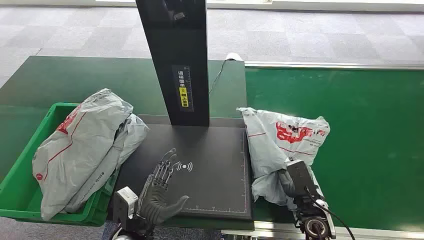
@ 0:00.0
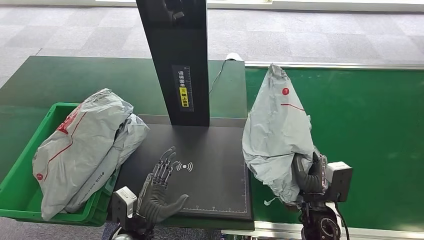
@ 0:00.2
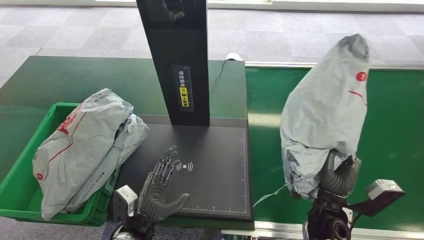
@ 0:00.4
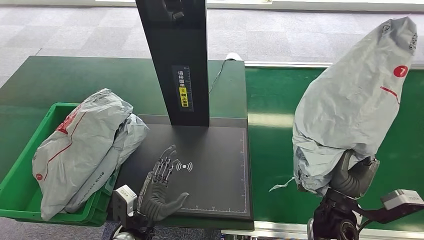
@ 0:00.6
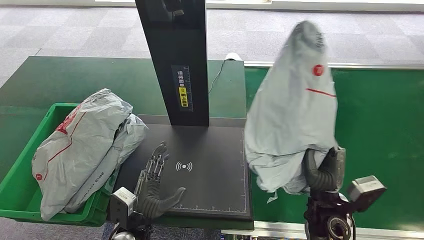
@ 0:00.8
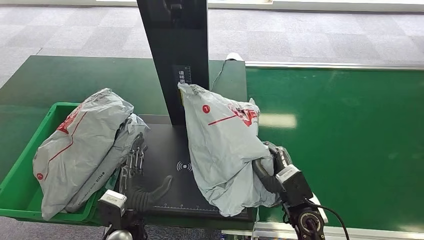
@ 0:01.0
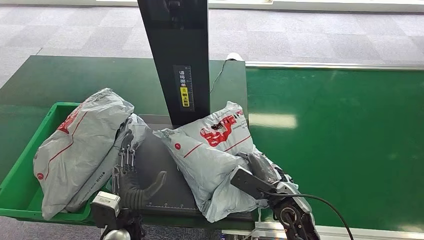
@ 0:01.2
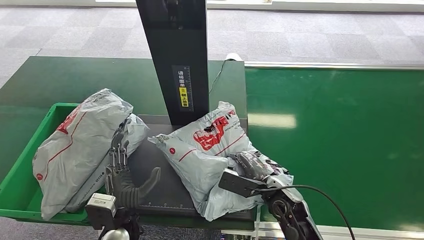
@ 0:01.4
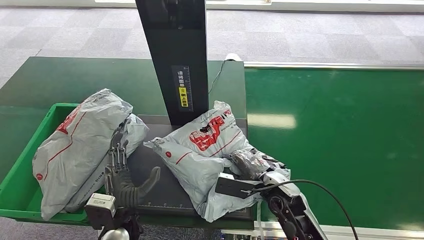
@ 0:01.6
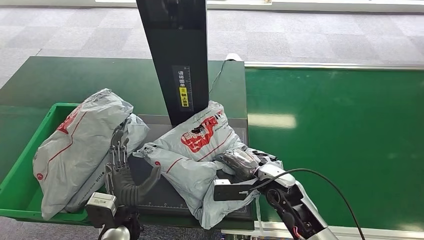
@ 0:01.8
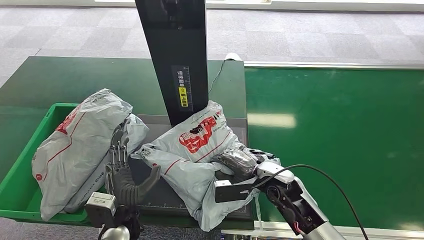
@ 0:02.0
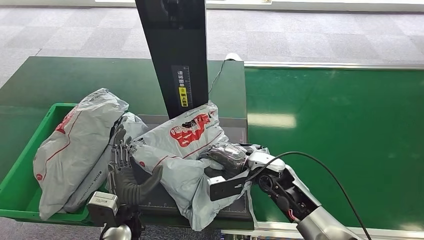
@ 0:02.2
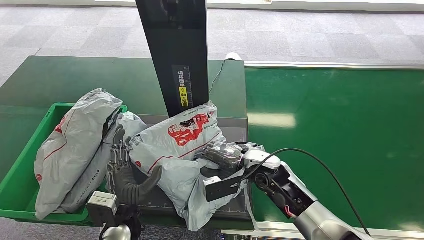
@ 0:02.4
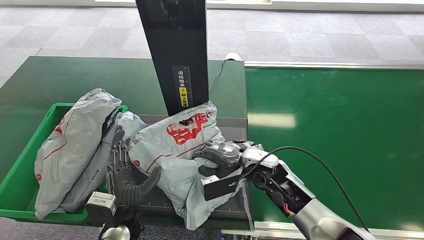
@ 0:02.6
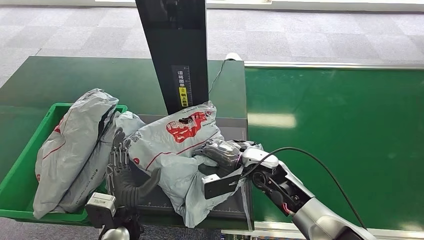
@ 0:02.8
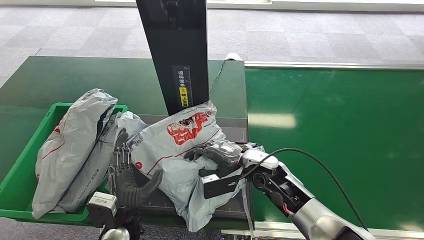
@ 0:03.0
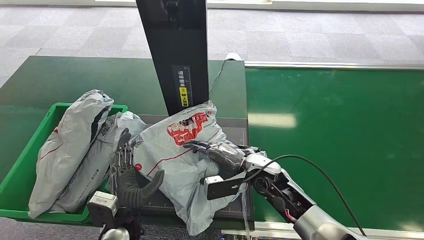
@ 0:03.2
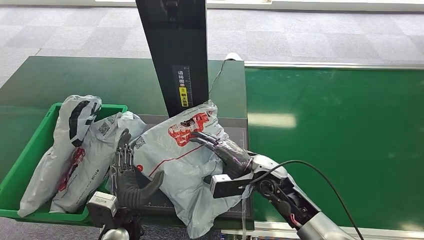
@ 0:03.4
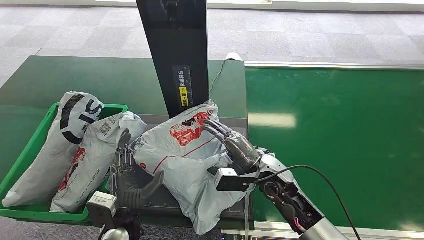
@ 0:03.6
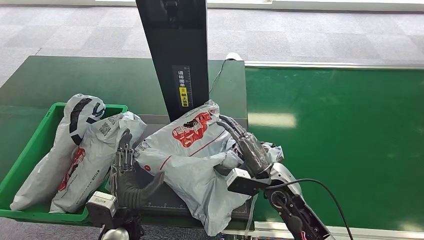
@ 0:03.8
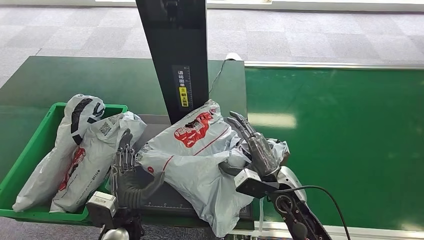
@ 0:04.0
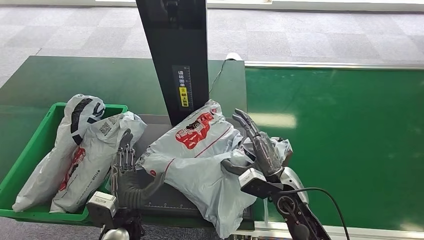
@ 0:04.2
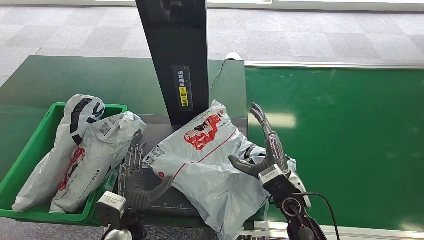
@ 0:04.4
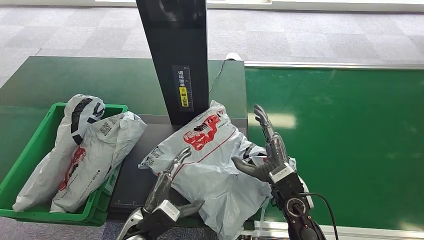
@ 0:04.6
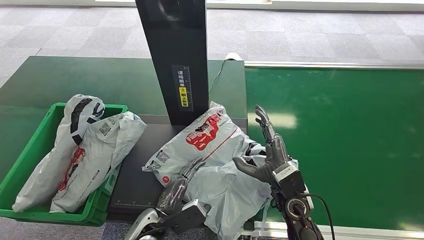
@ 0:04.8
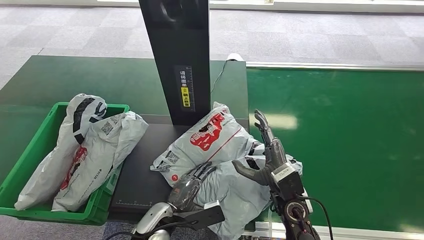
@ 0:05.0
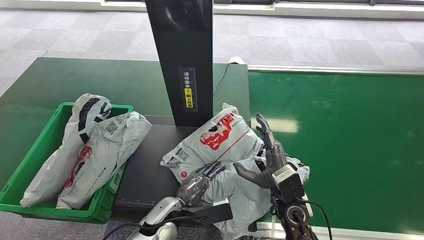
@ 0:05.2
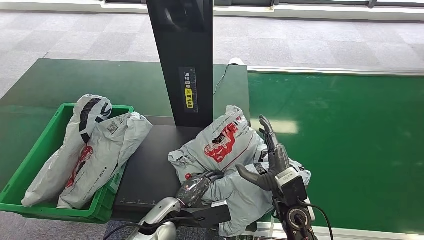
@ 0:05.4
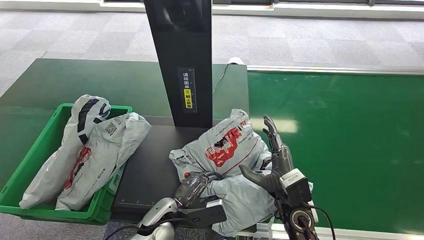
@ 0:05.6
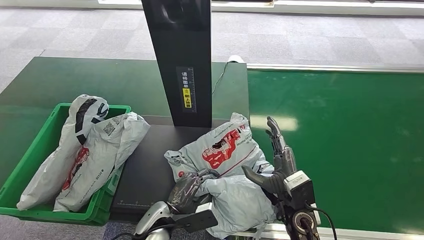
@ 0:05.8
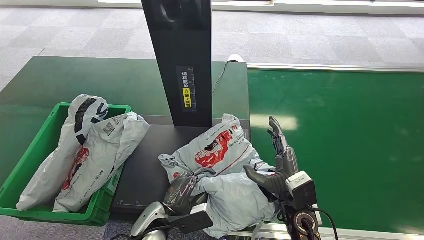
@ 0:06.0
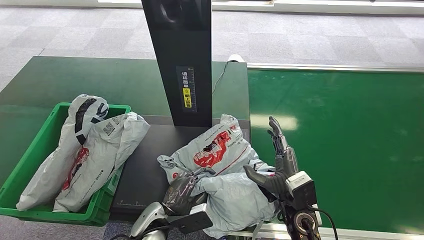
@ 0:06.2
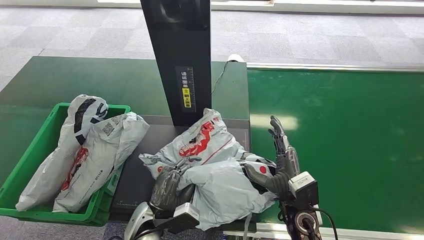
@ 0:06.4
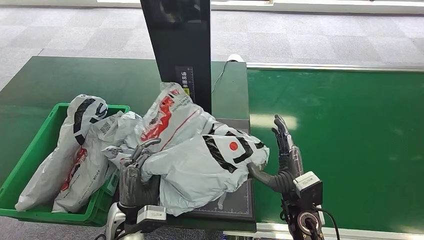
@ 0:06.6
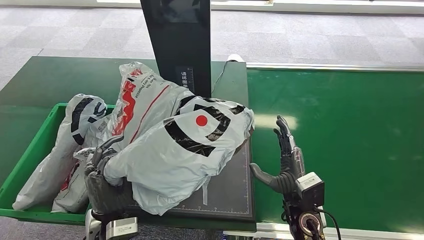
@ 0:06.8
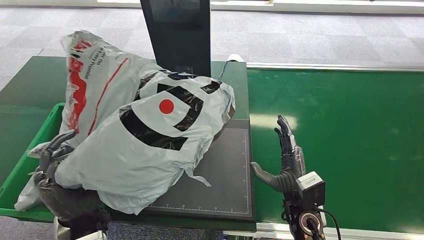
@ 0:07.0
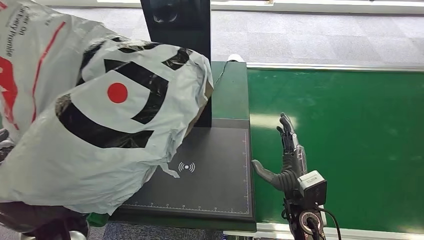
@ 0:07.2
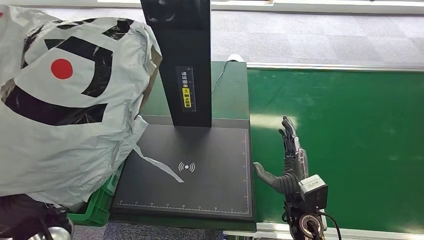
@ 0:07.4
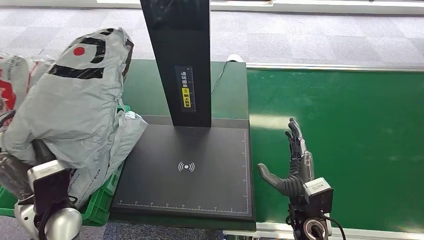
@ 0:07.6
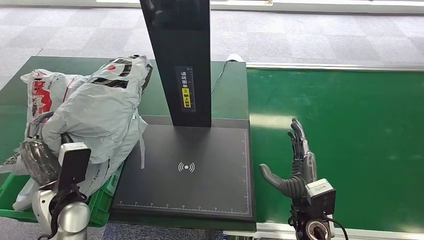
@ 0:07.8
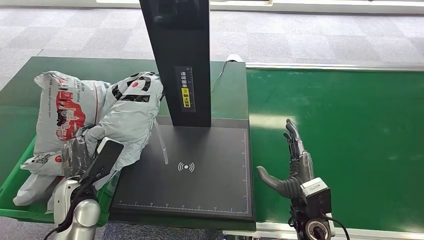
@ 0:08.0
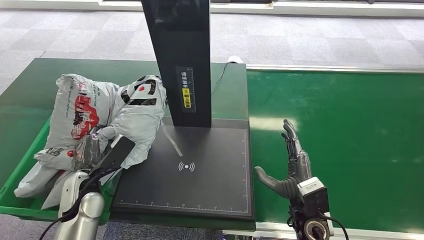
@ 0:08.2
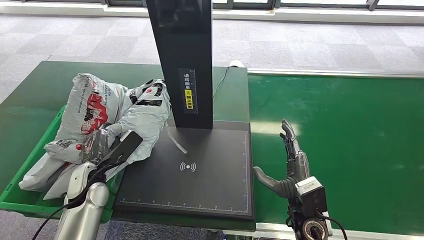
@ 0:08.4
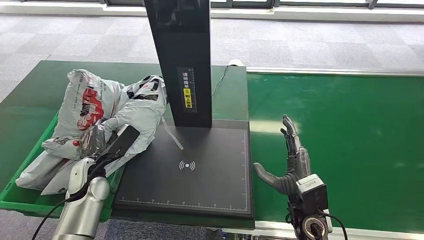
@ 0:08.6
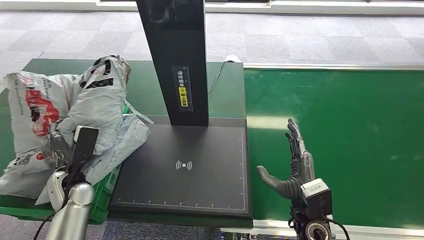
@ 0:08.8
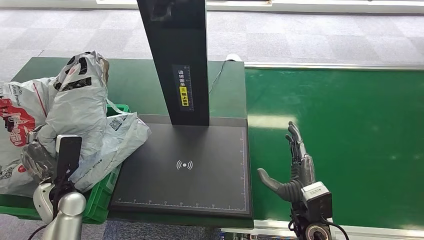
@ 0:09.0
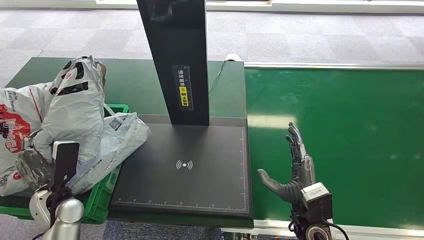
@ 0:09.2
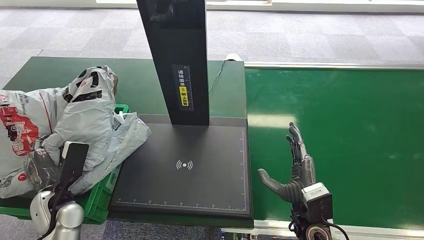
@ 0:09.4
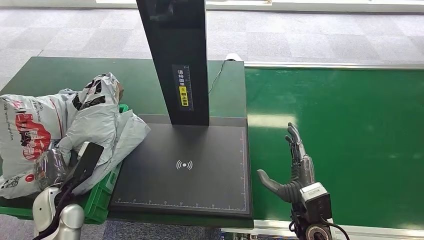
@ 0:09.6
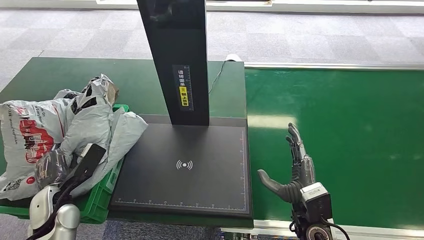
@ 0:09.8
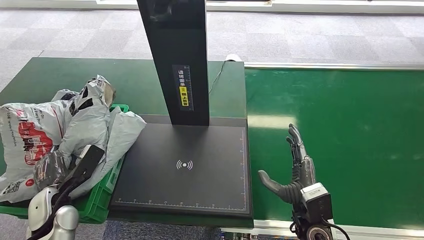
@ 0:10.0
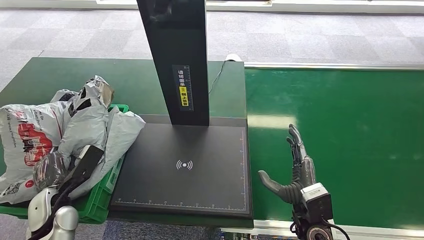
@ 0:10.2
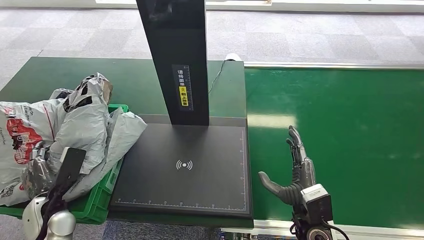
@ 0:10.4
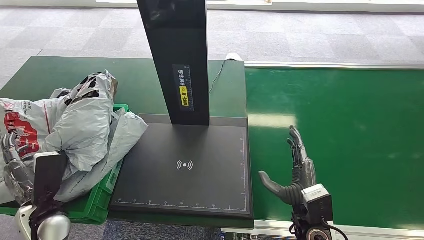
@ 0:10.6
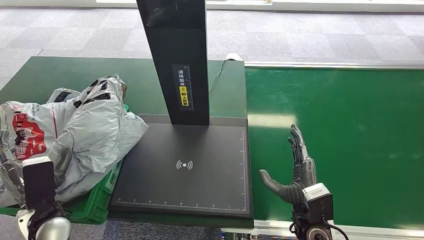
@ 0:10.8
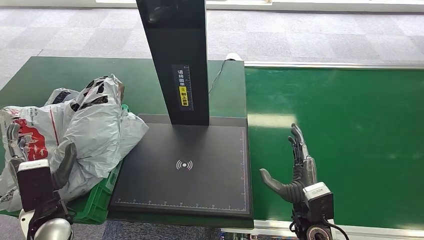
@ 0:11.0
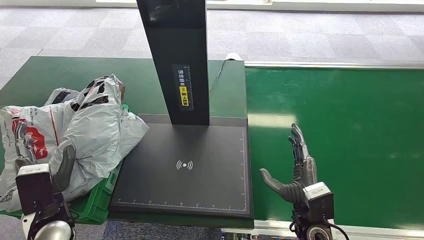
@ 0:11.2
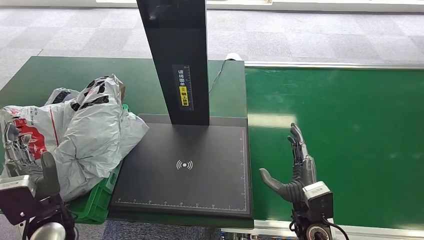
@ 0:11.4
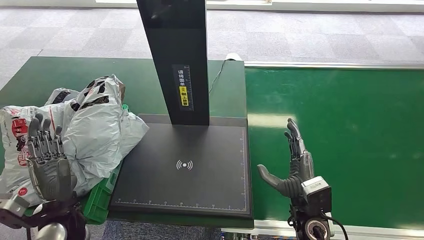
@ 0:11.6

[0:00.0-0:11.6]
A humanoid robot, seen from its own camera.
Step, 0:00.0 to 0:00.2: Pick up the package from the conveyor belt.
Step, 0:06.6 to 0:06.8: Pick up the package from the inbound machine.
0:01.4 to 0:02.8: The right hand shifts about 5 cm forward.
0:08.8 to 0:10.2: The left hand moves backward, approximately 5 cm.
0:10.2 to 0:11.6: The left hand shifts about 5 cm to the right.
